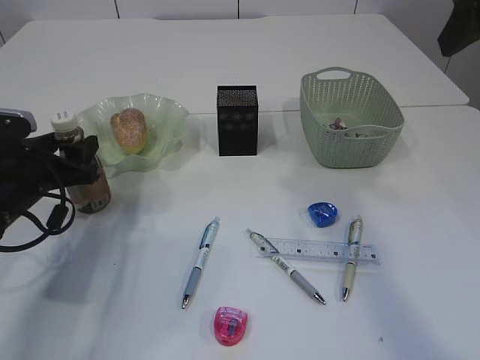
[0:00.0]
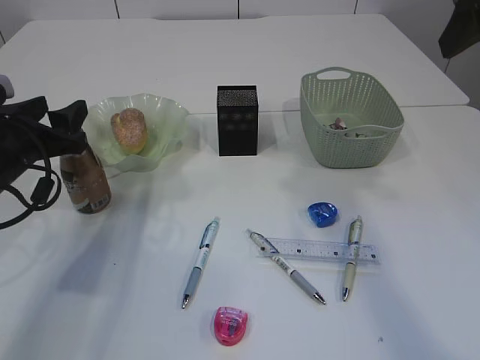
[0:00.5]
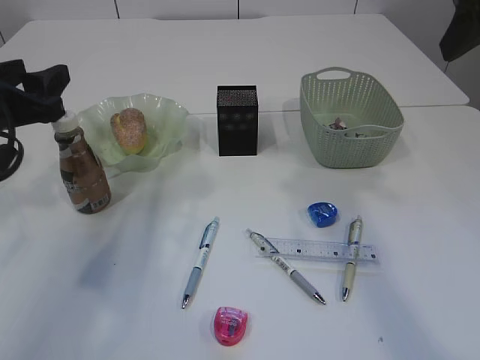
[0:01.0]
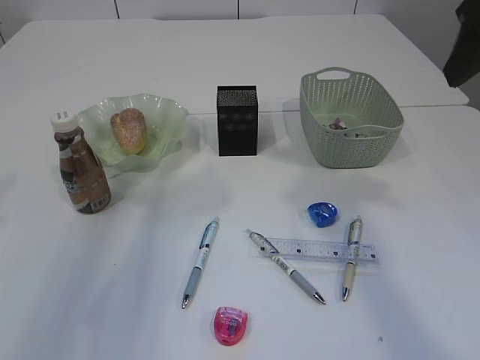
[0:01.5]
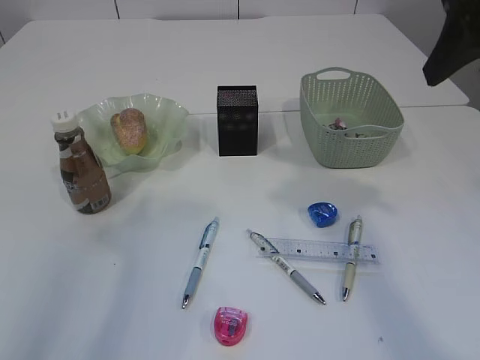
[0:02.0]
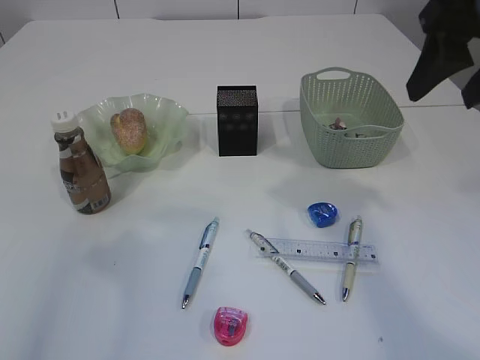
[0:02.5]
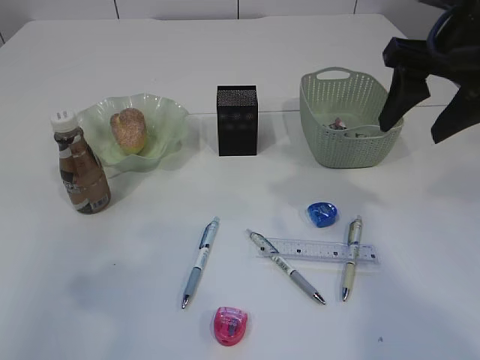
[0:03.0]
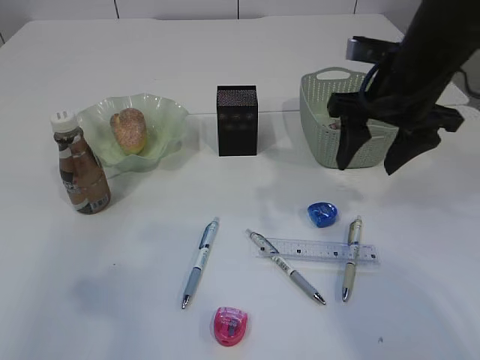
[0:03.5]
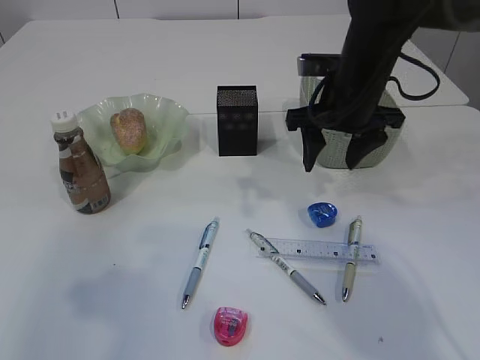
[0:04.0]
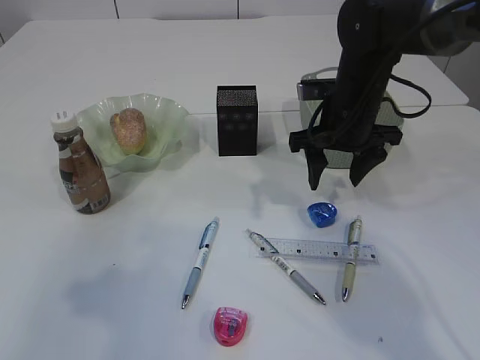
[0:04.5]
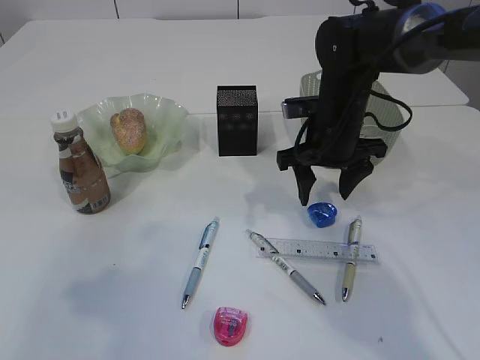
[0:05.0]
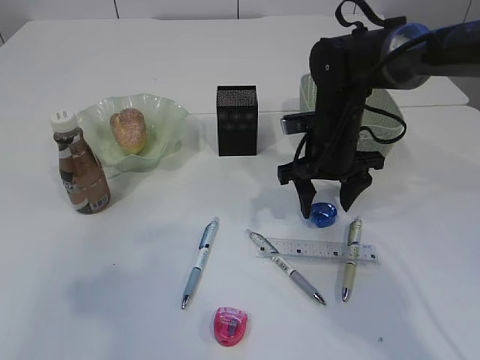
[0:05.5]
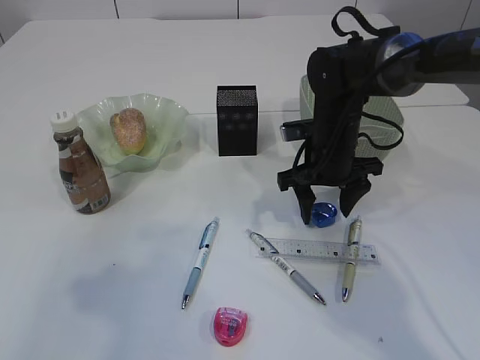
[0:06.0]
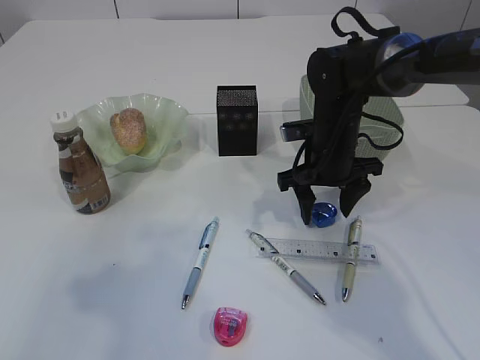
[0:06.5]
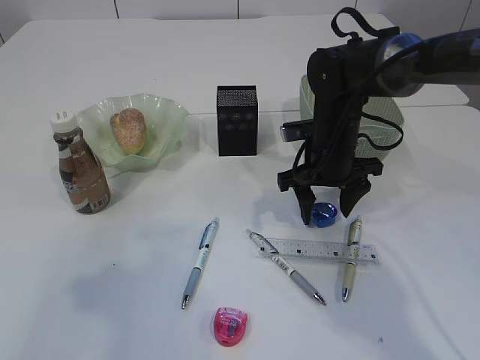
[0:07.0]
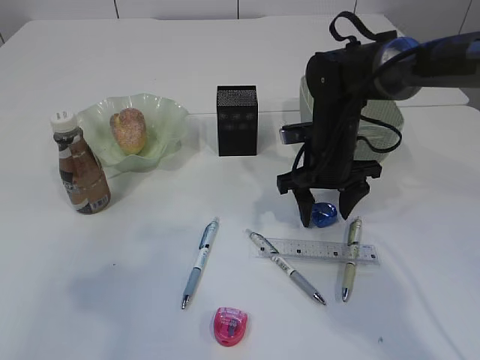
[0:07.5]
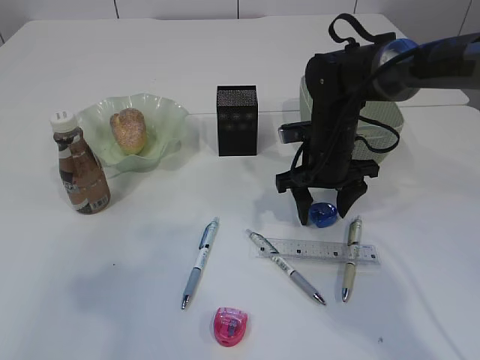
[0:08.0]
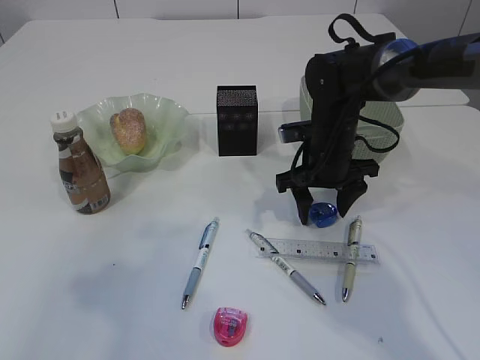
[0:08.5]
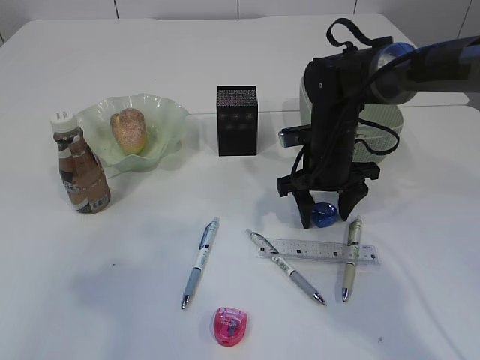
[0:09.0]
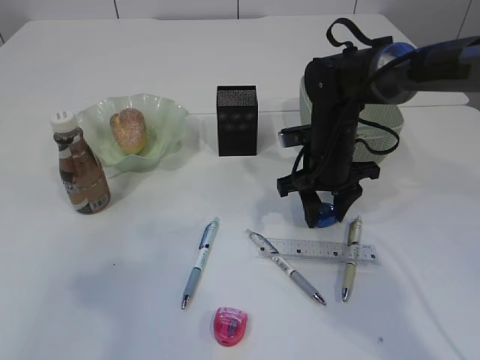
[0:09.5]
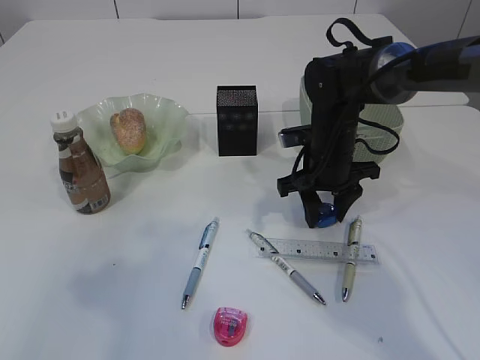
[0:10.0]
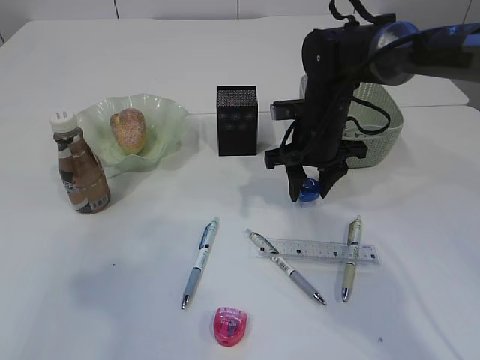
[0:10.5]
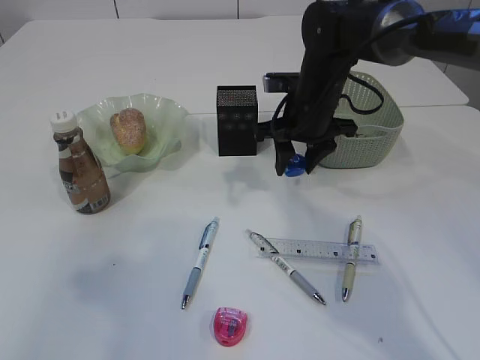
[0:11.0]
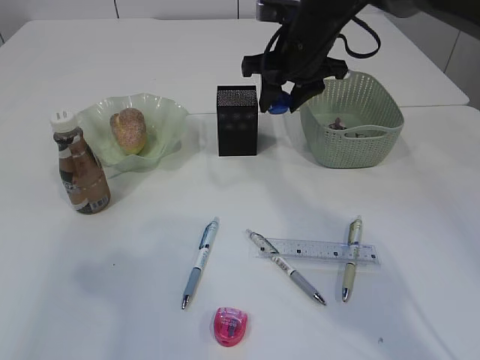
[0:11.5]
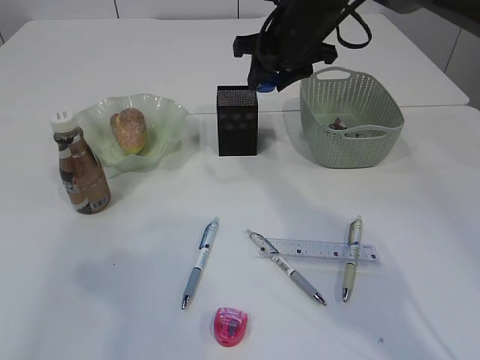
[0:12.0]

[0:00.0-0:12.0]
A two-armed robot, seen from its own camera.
Step, 0:01.5 to 0:10.5: Pick up the blue pencil sharpener.
0:00.0 to 0:02.0: The left gripper travels upward and backward by about 25 cm.
0:02.0 to 0:04.0: The right gripper travels downward, forward and to the left by approximately 20 cm.
0:04.0 to 0:06.0: The right gripper goes some 10 cm downward.
0:06.0 to 0:10.0: The two grippers keep their place.
0:10.0 to 0:12.0: The right gripper goes some 15 cm upward and forward.

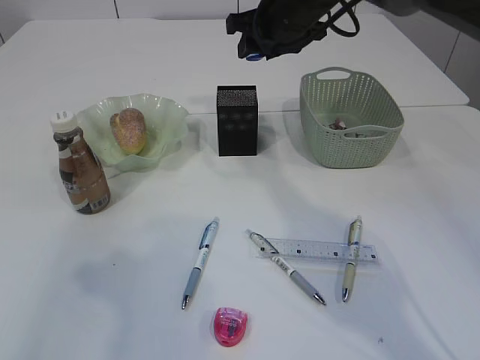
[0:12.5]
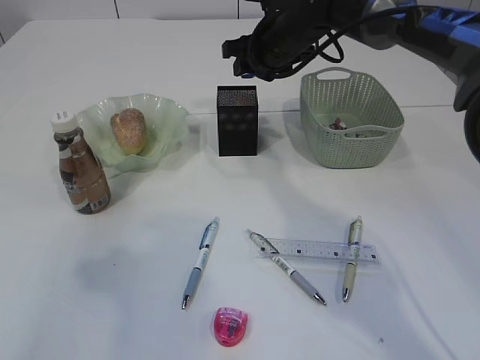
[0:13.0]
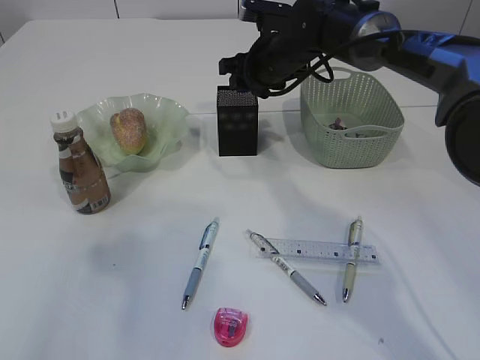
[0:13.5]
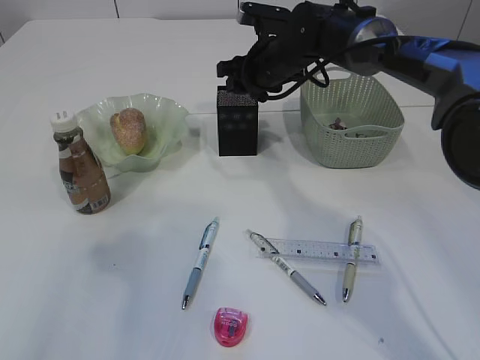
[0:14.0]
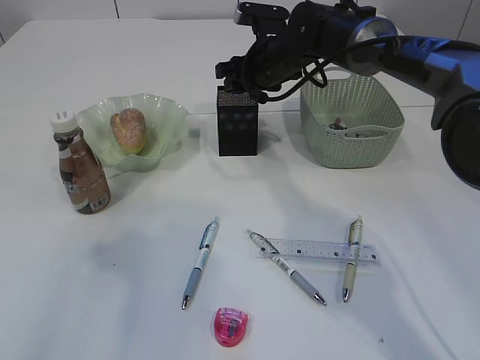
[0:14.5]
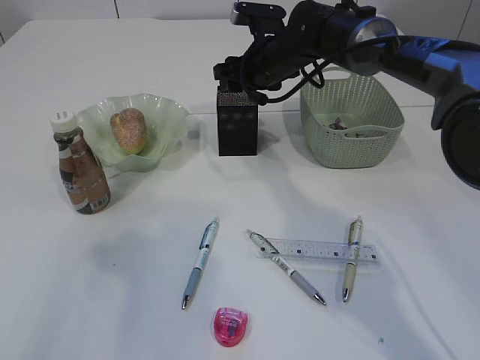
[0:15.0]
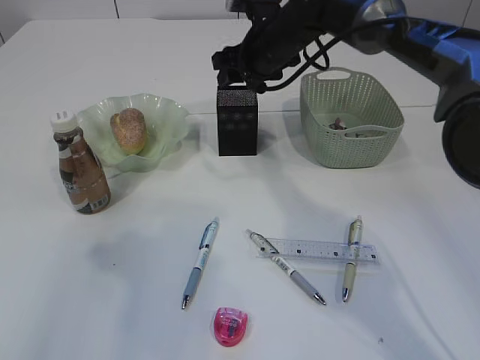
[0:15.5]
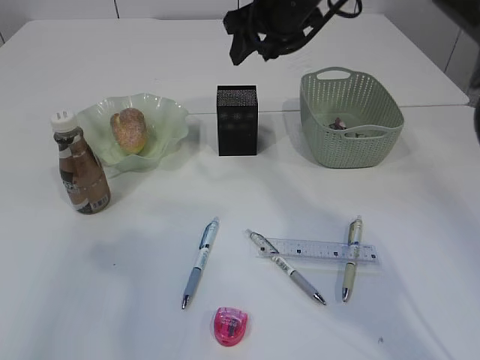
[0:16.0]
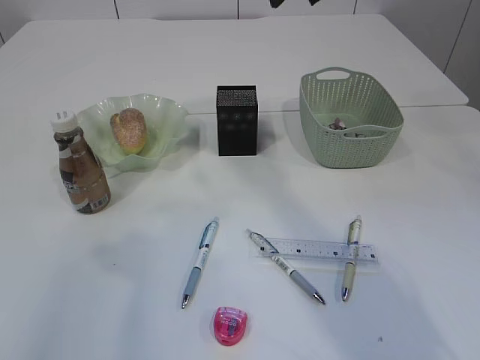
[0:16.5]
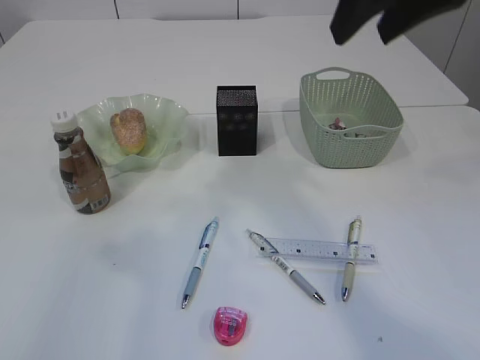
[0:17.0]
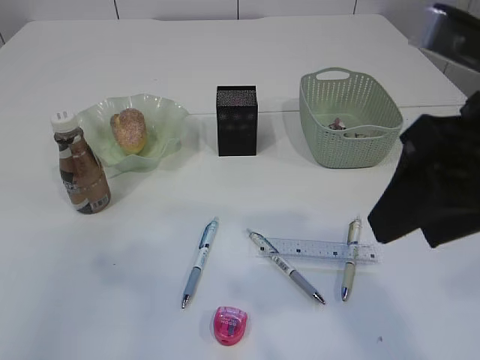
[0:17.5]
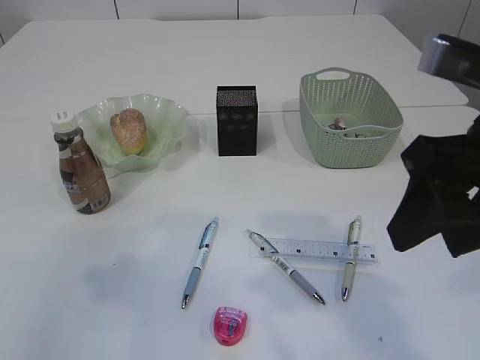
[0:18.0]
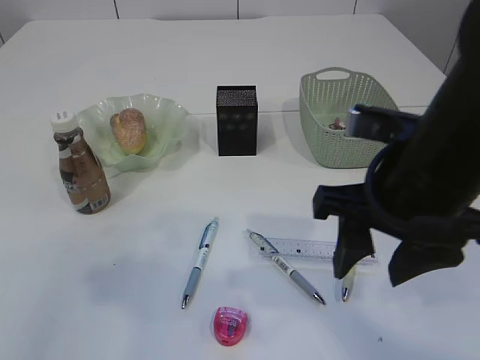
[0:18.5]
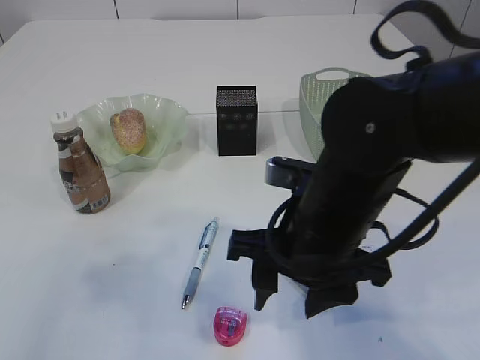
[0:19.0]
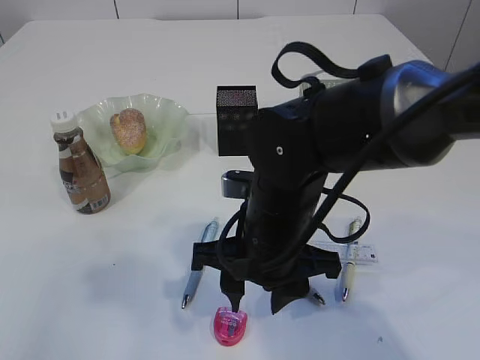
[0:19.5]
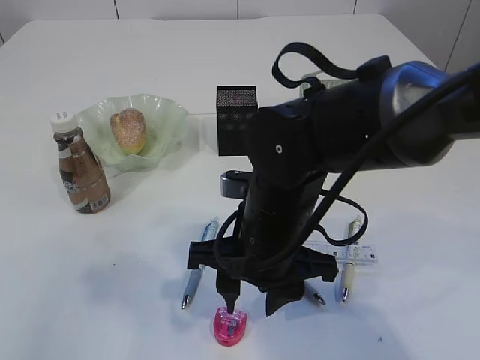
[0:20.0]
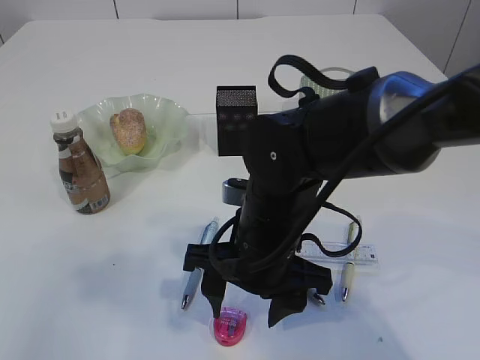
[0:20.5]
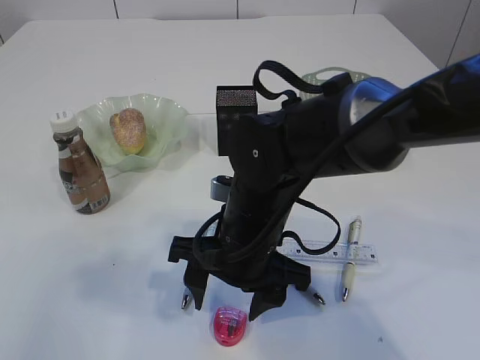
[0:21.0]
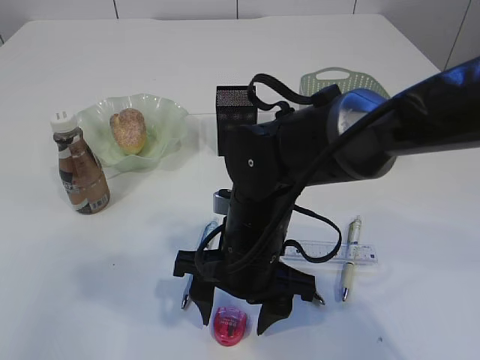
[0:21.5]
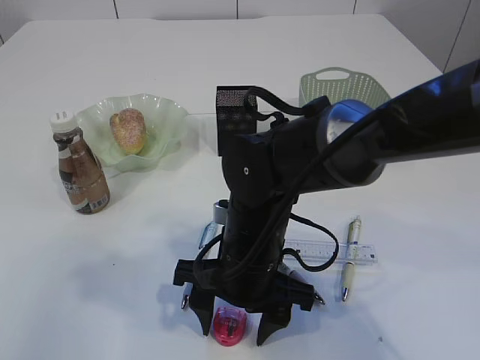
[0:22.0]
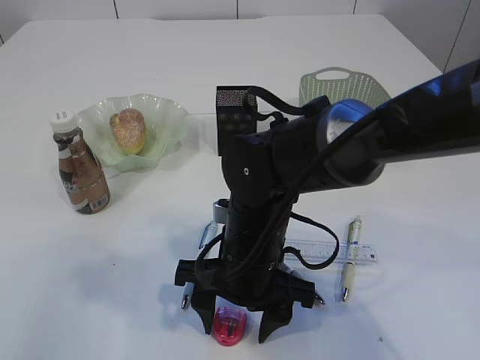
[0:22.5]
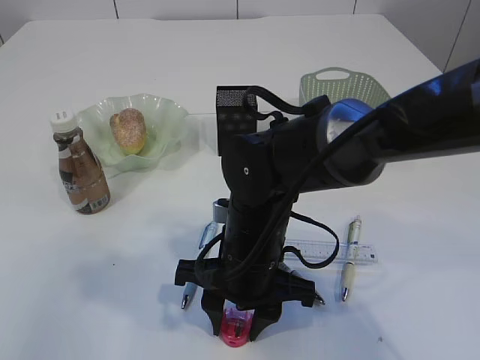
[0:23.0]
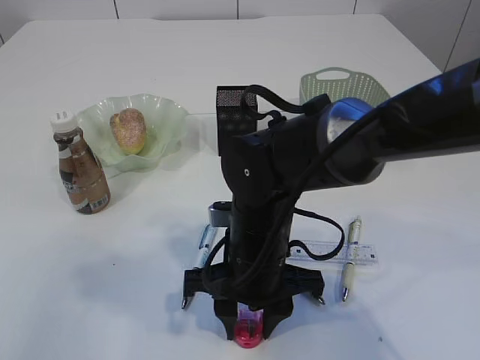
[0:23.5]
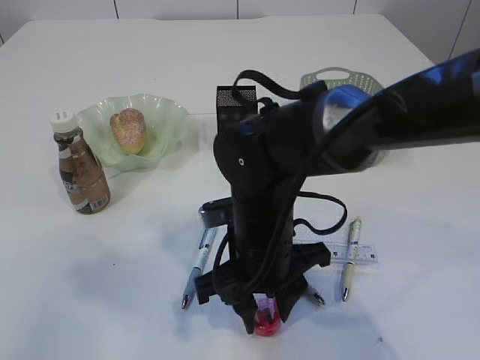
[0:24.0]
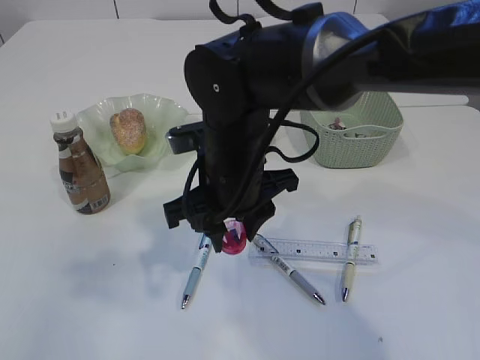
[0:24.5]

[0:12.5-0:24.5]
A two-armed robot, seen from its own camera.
Step, 0:12.5 to 0:15.5: Place the blue pencil sharpener into the pen holder.
Step, 0:16.0 to 0:24.0: Pick up the red pencil sharpener.
0:12.5 to 0:14.5: The right gripper shifts approximately 10 cm downward.
0:14.5 to 0:16.5: The right gripper travels upward and backward by some 20 cm.
0:16.5 to 0:18.5: The right gripper shifts roughly 25 cm backward and downward.
0:18.5 to 0:20.5: The right gripper heads to the left and downward, covering some 15 cm.
0:20.5 to 0:22.5: The grippers stay close to where they were, moving slightly.
0:22.5 to 0:24.5: The right gripper goes about 5 cm upward, and closes.

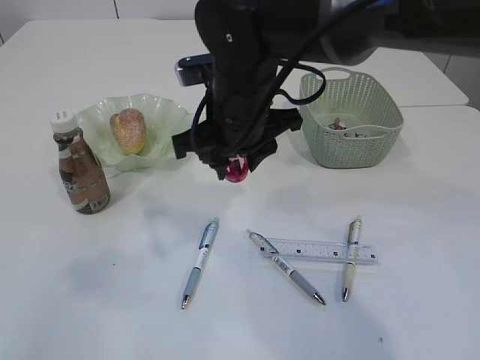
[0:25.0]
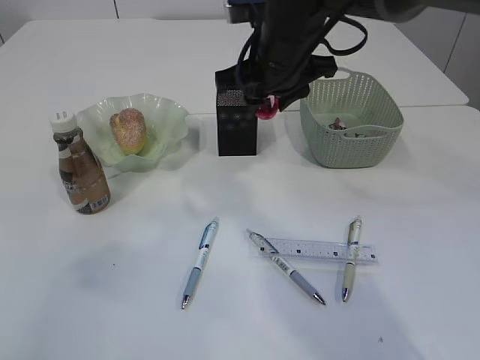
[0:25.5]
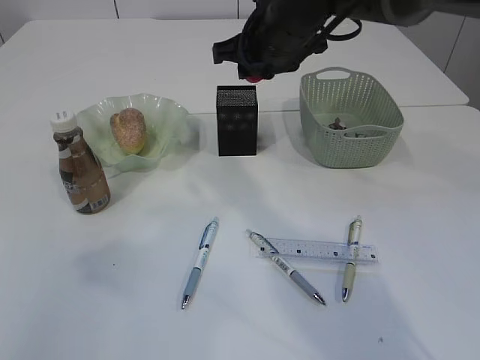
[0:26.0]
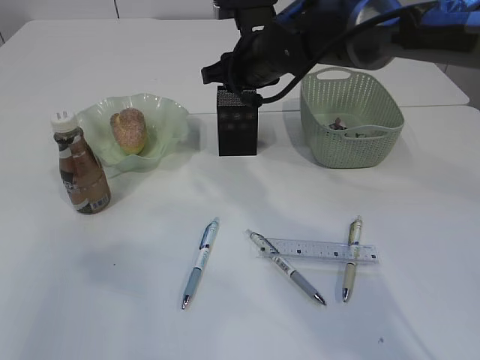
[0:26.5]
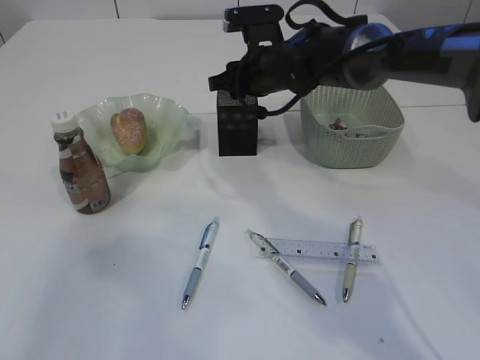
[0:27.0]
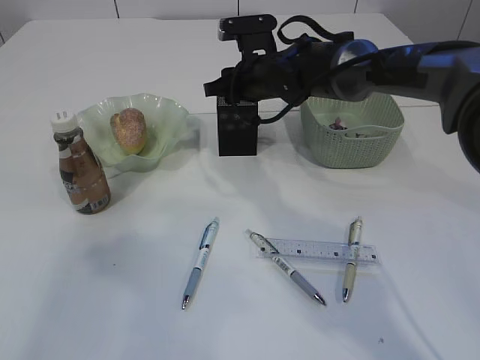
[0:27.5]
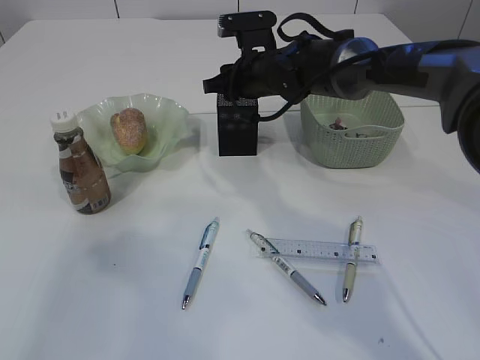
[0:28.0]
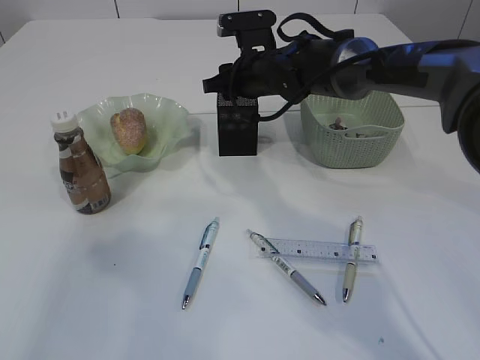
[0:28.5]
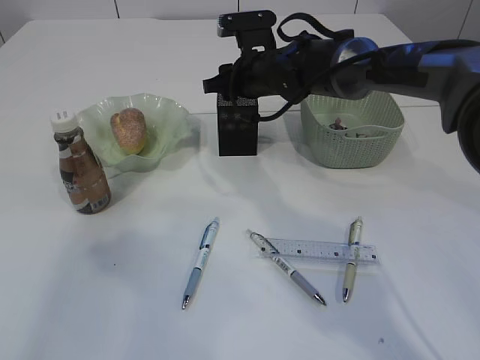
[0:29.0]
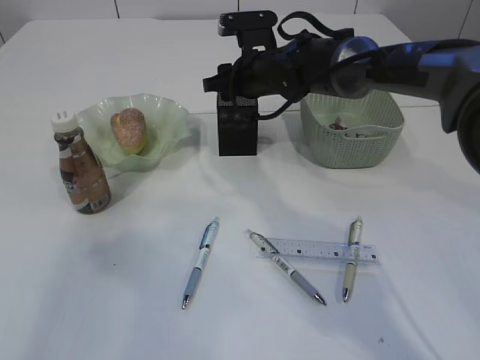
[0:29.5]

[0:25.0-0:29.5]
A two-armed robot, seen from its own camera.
0:25.0 to 0:27.0: The right gripper shifts approximately 15 cm forward and to the right.
0:27.0 to 0:29.5: The grippers stay close to where they were, moving slightly.
